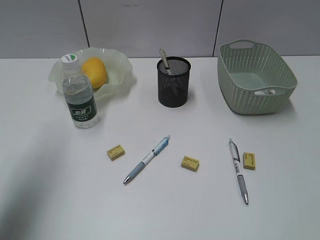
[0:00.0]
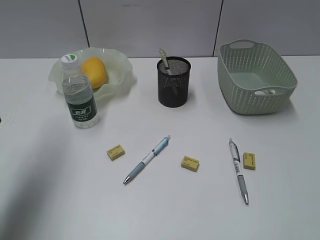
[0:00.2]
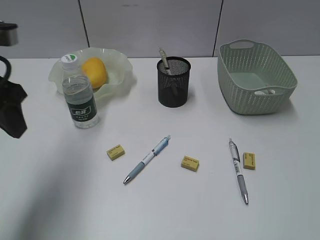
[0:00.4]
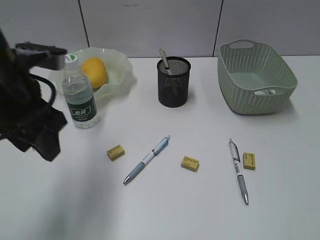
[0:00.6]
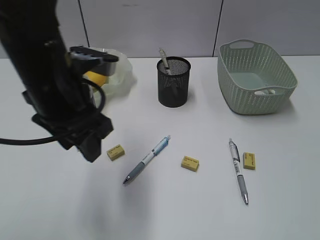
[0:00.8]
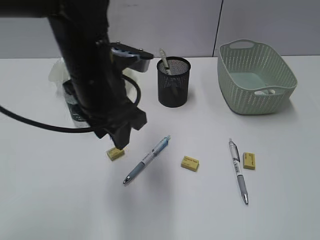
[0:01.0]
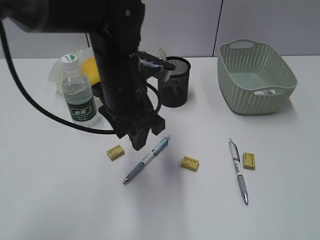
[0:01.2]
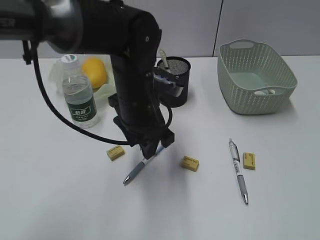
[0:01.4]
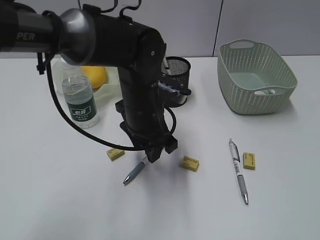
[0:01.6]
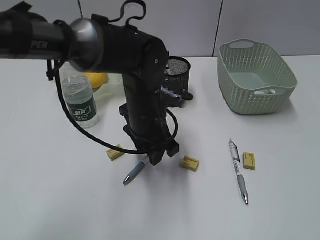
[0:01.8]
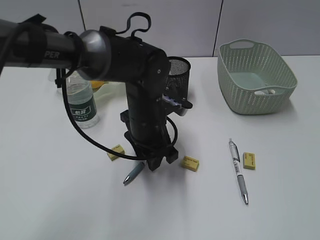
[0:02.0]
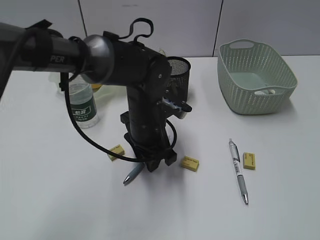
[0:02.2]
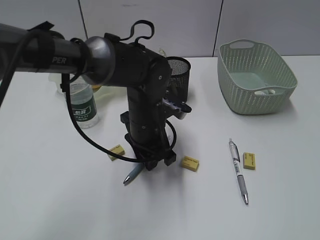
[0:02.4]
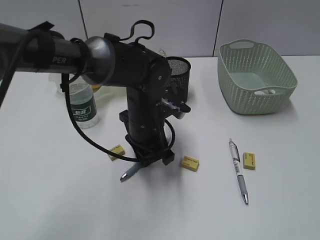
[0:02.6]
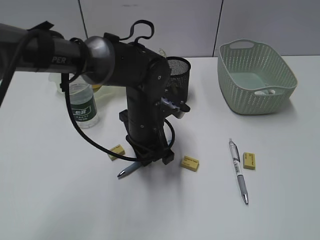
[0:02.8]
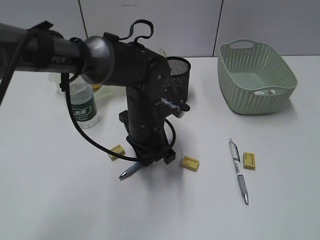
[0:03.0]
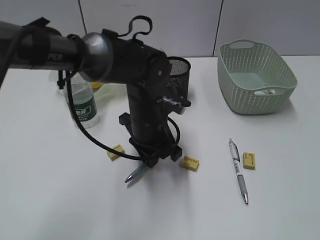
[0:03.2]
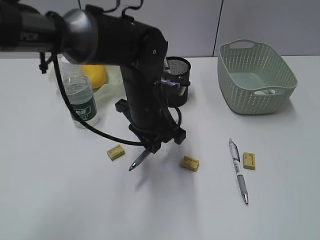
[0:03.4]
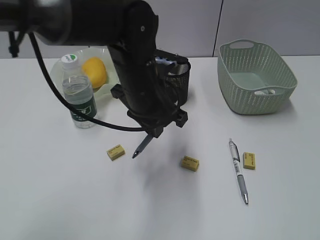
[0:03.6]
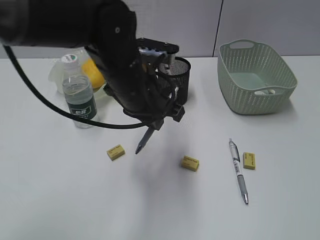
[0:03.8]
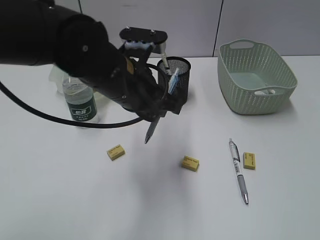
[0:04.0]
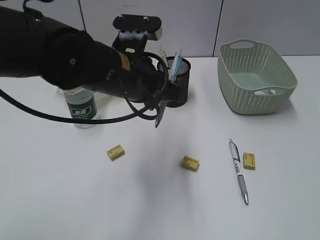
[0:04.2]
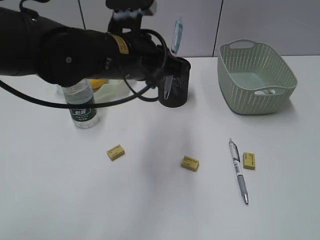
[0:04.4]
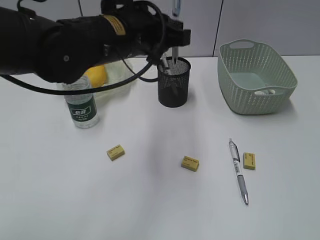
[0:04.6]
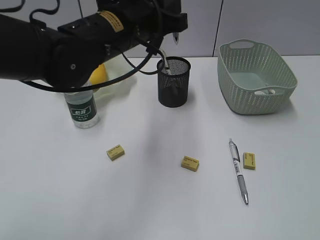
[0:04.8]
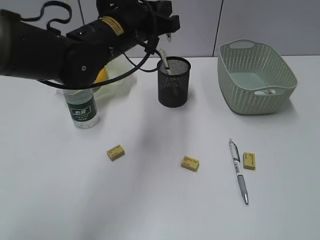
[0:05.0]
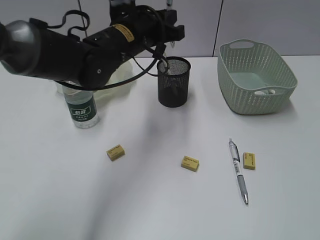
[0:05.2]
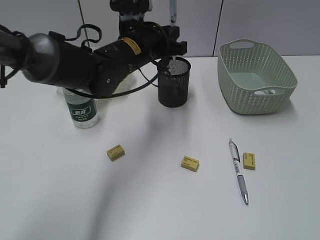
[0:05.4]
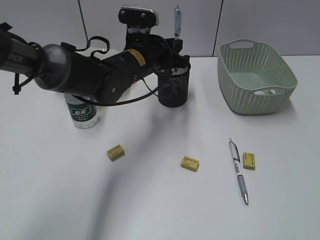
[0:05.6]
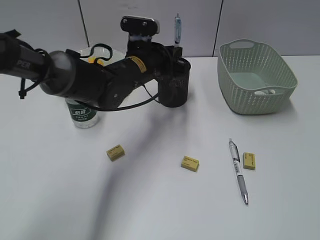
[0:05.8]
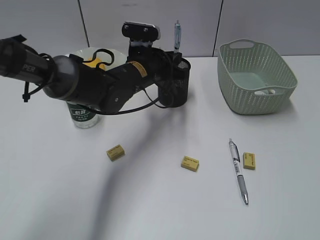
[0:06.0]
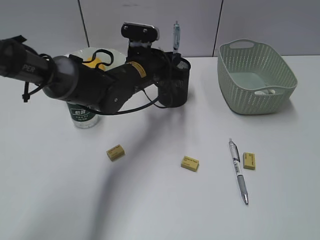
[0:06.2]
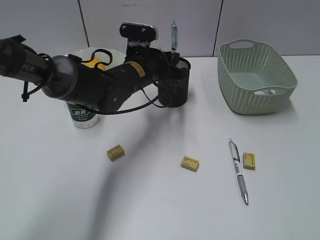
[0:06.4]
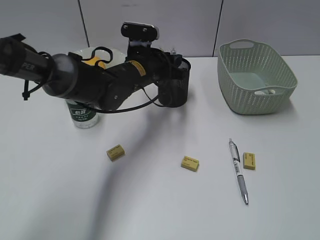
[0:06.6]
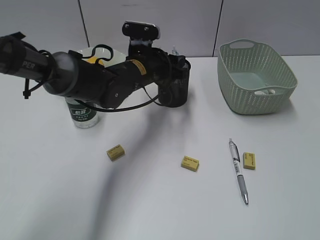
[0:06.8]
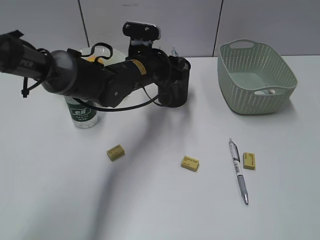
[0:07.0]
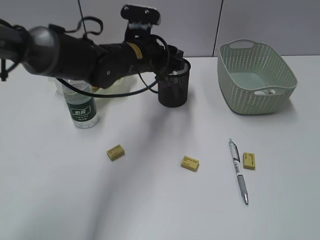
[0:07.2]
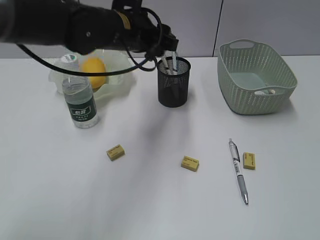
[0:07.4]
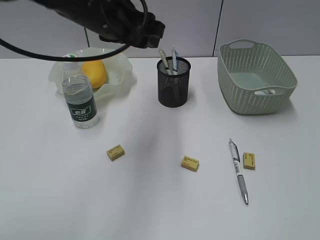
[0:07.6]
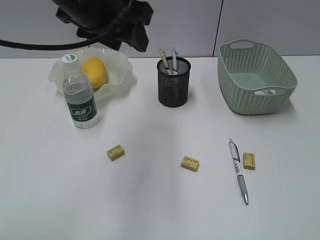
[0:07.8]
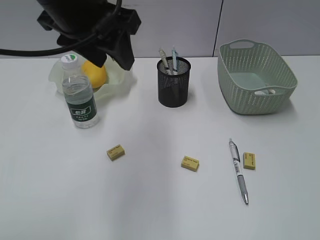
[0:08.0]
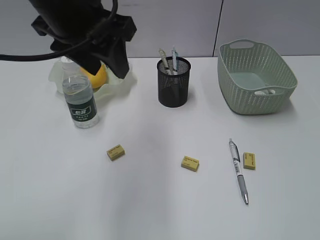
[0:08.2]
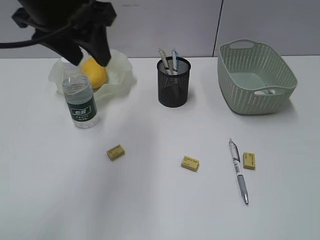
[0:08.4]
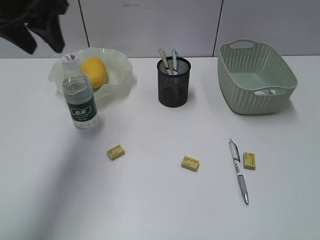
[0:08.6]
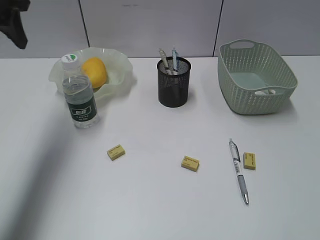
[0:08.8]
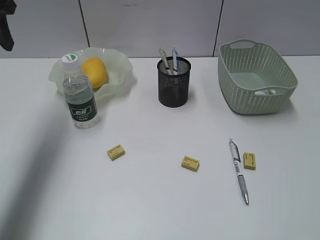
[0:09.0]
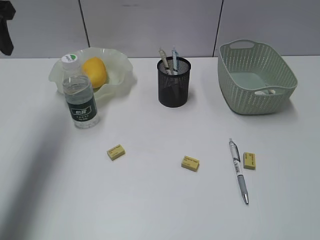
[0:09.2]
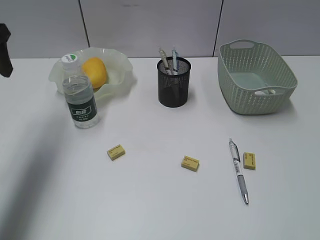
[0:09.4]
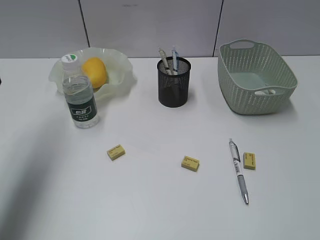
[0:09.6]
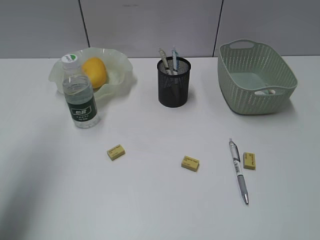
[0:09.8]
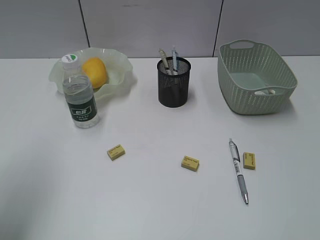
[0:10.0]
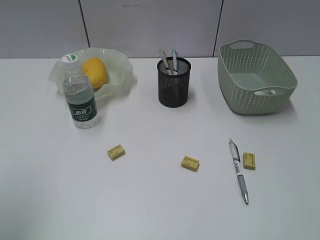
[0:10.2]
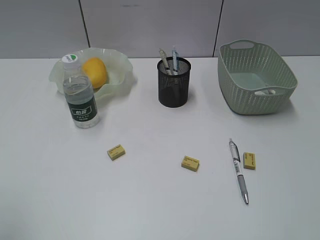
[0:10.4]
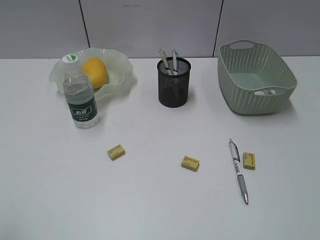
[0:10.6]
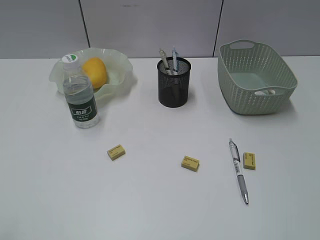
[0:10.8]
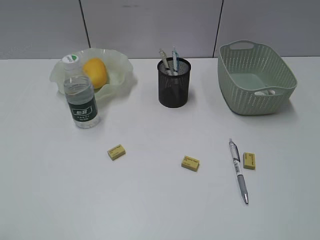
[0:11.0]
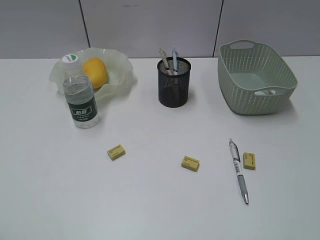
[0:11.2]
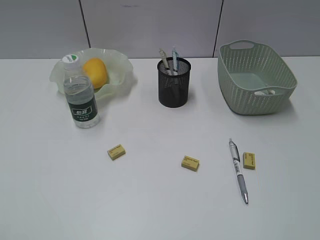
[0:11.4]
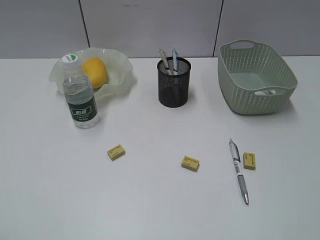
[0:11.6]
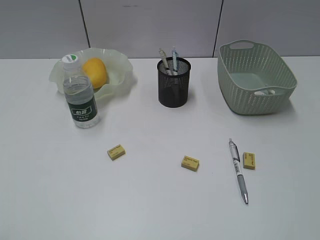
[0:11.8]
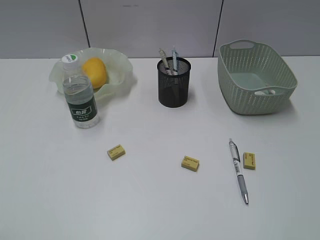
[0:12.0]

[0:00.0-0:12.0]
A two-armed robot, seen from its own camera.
Step, 0:00.0 to 0:02.8: Grasp the blue pen with left gripper.
Step, 0:03.0 to 0:07.0: Place the blue pen in pen holder with left gripper.
0:00.0 to 0:01.6: The left gripper moves to the right and downward, some 30 cm.
0:01.6 to 0:03.0: The left gripper closes up.
0:03.0 to 0:04.4: The left gripper heads upward, covering approximately 10 cm.
0:04.4 to 0:06.0: The left gripper travels forward and downward by about 15 cm.
0:06.0 to 0:07.6: The left gripper goes roughly 15 cm upward, and opens its fingers.
0:07.6 to 0:09.0: The left gripper moves to the left, roughly 20 cm.
0:09.0 to 0:10.4: The left gripper travels backward by some 30 cm.

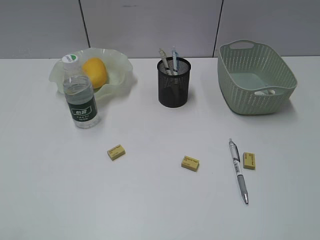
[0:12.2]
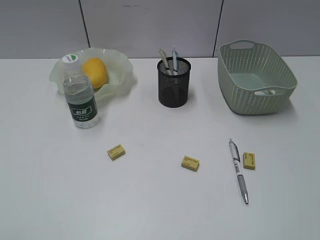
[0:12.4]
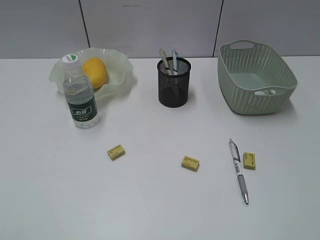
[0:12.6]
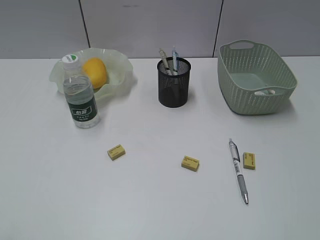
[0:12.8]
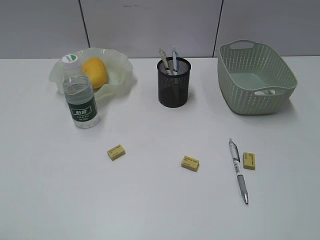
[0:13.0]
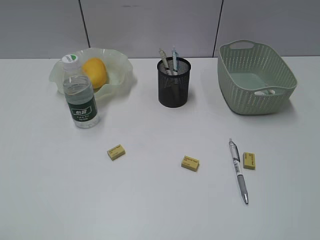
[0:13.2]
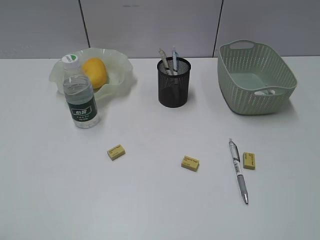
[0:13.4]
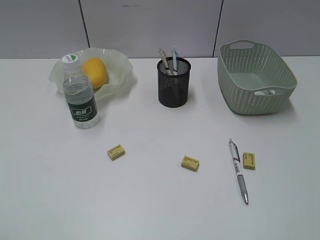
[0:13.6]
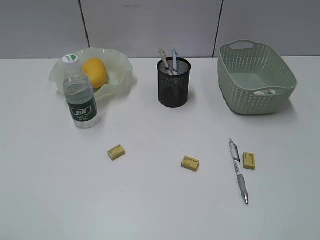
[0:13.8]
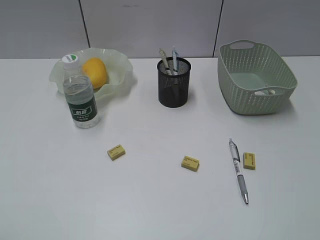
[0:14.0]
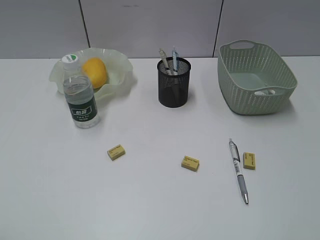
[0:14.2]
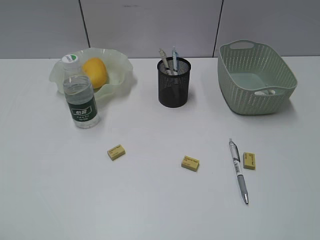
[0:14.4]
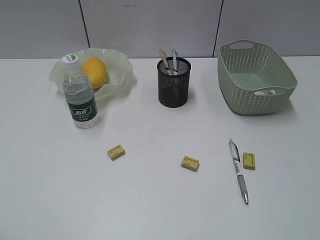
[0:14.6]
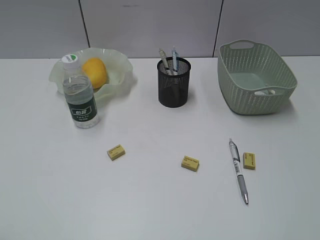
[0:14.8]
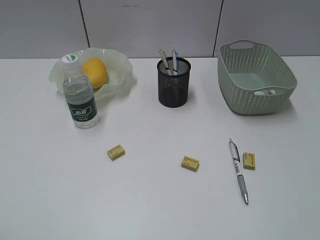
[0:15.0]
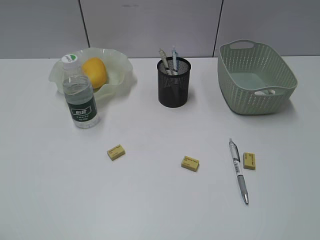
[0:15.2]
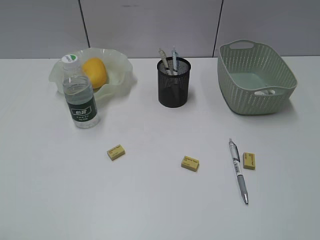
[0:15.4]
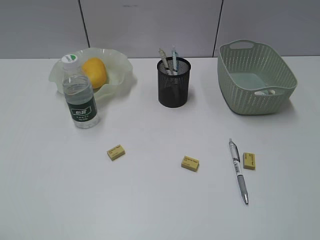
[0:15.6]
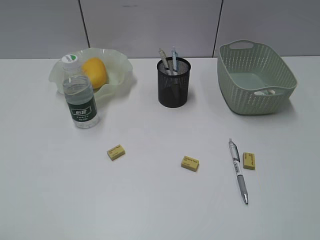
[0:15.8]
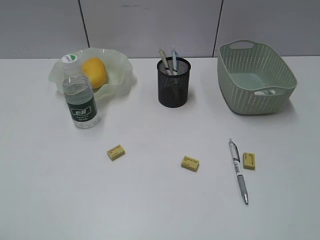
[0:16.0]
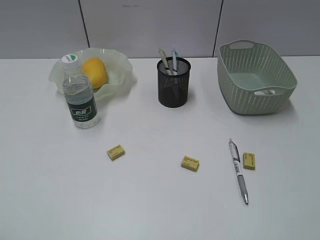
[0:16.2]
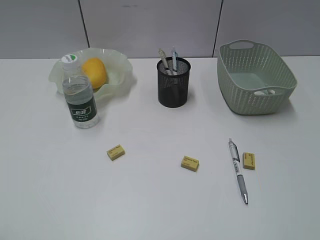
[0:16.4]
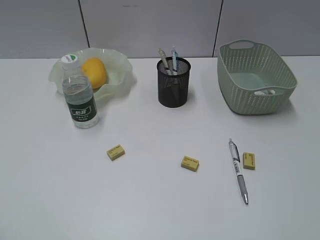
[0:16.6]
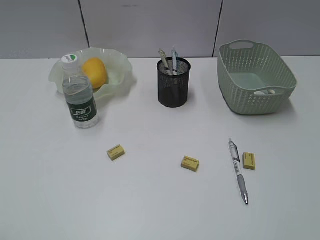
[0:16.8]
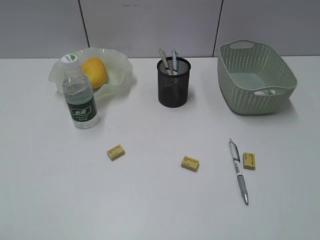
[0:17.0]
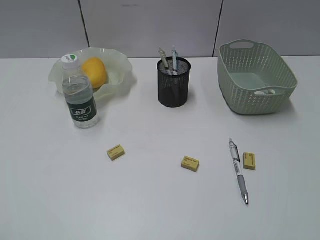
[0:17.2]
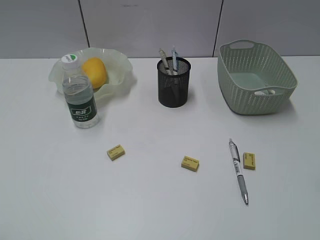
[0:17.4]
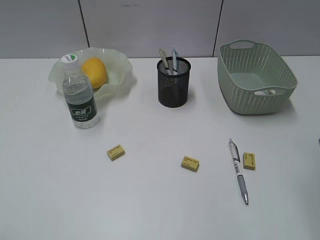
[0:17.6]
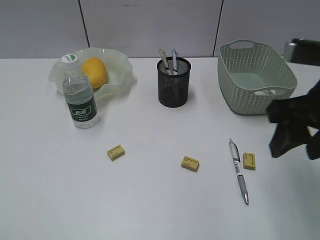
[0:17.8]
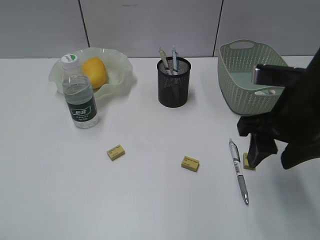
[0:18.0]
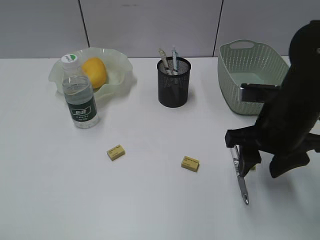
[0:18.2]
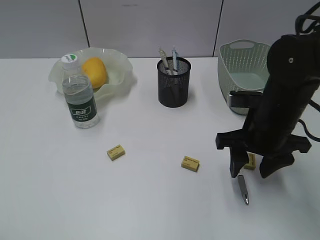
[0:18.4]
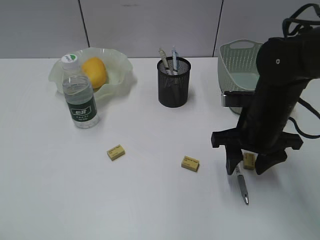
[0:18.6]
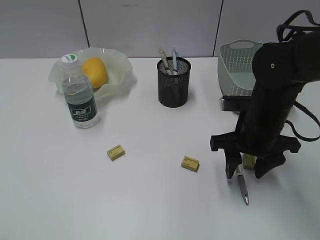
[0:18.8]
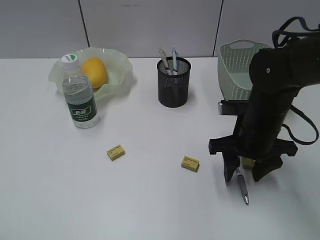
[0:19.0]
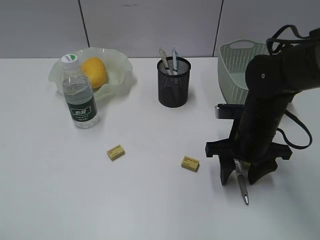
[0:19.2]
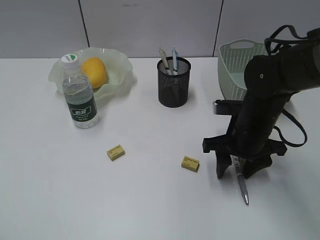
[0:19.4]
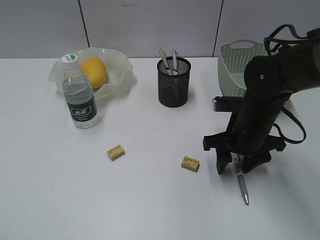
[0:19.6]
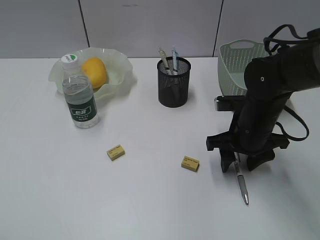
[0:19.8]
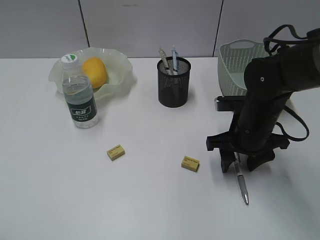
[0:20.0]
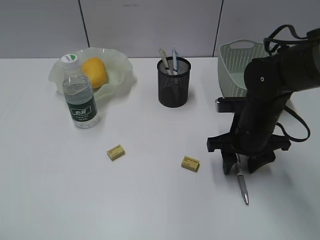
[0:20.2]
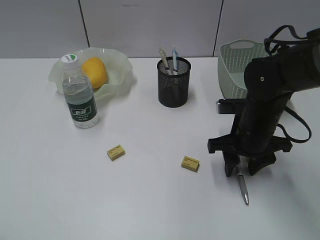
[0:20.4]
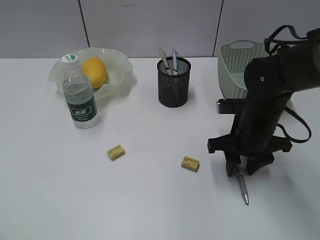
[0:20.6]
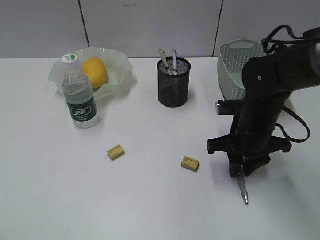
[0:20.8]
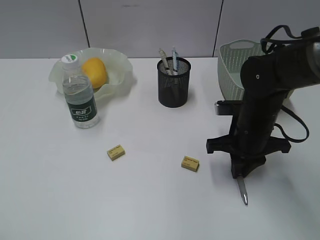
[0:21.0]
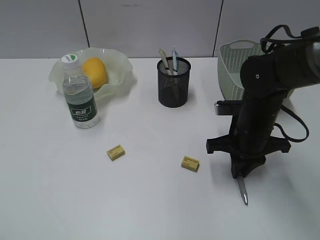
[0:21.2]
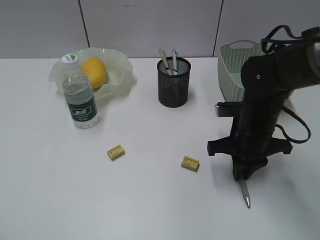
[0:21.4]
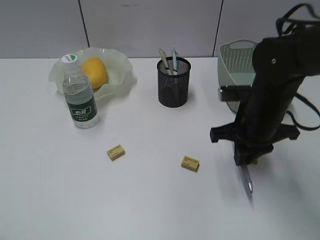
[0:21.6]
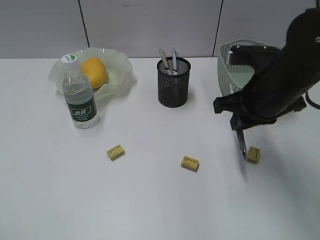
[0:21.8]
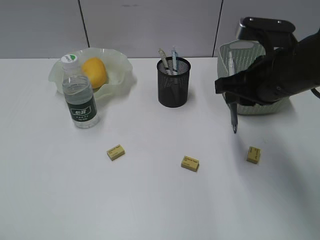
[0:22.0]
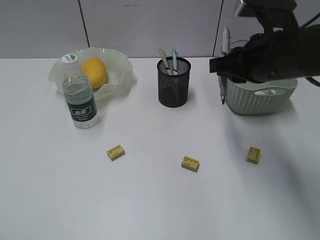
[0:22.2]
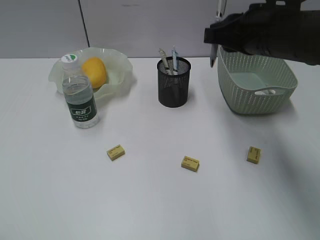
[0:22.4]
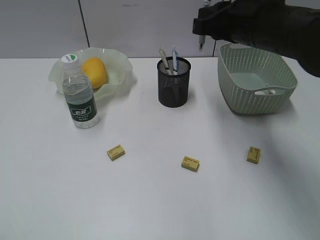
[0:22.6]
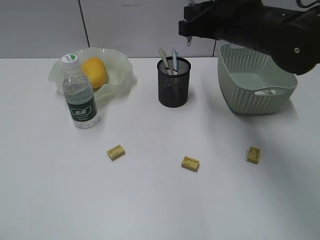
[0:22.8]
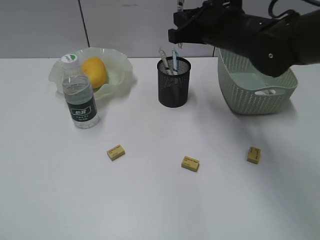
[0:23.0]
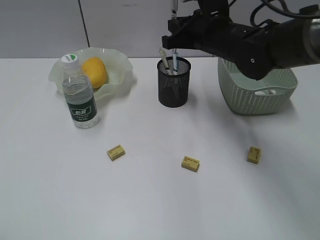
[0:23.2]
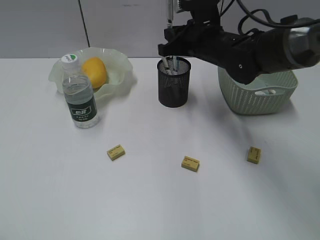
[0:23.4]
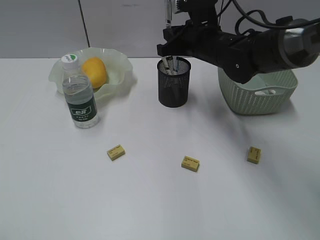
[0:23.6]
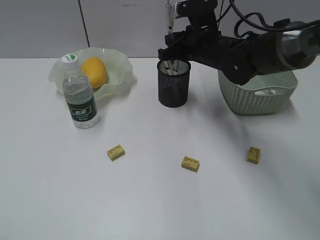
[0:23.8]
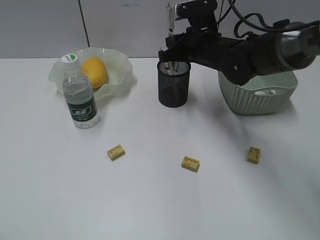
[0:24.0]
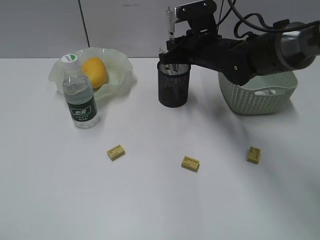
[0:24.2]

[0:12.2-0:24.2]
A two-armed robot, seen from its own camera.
Step, 0:12.2 to 0:21.2: Grasp the gray pen with right gripper.
0:13.8 to 0:15.2: Neither gripper changes place.
0:16.6 to 0:18.2: The right gripper travels forward, downward and to the left by roughly 30 cm.
0:18.2 to 0:19.8: The right gripper travels downward by roughly 5 cm.
0:19.8 to 0:21.2: The right gripper closes its fingers.
0:21.2 to 0:22.6: The right gripper is displaced upward by some 15 cm.
0:22.6 to 0:24.2: The right gripper shifts some 15 cm downward, forward and to the left.
